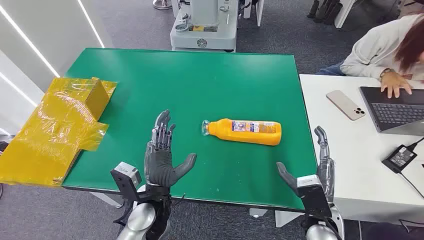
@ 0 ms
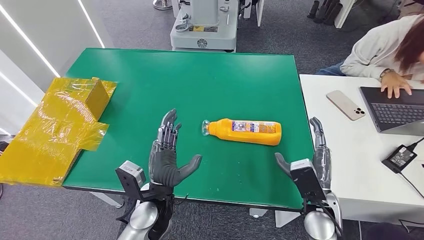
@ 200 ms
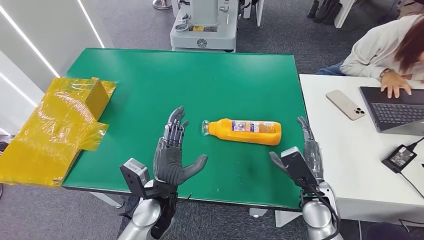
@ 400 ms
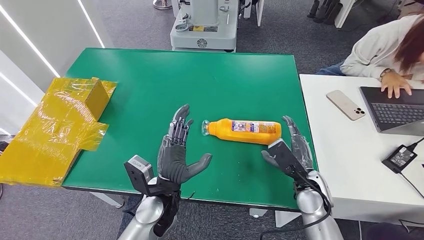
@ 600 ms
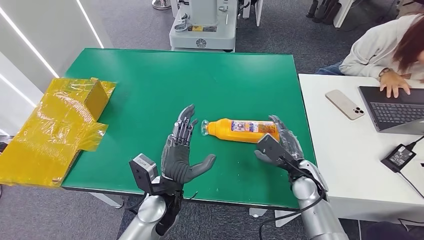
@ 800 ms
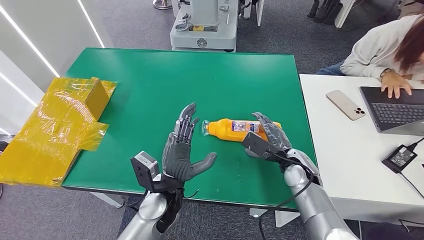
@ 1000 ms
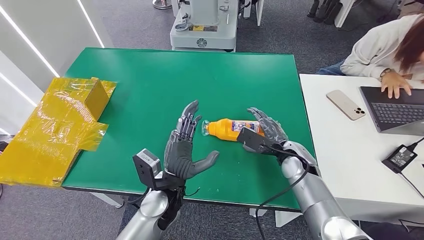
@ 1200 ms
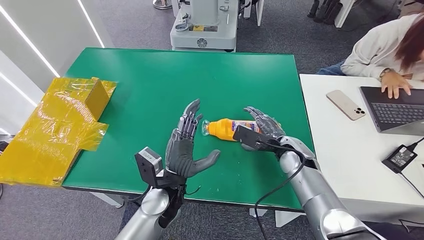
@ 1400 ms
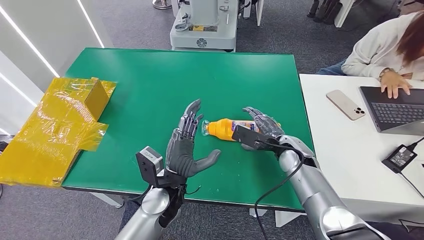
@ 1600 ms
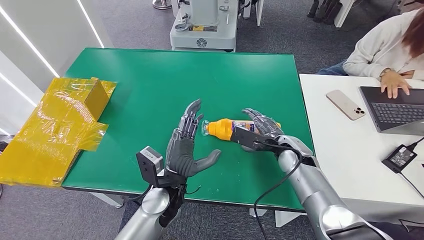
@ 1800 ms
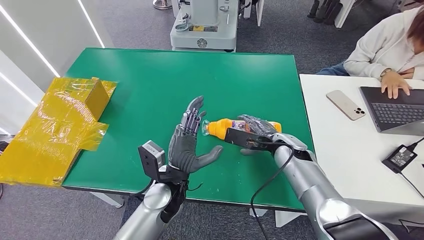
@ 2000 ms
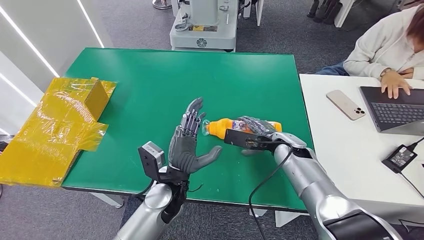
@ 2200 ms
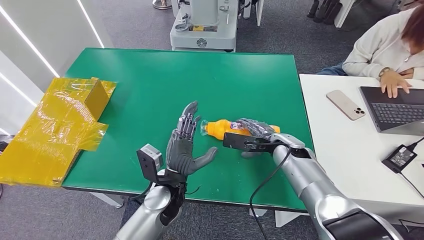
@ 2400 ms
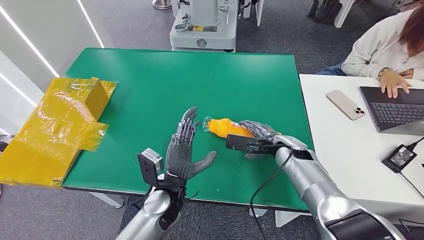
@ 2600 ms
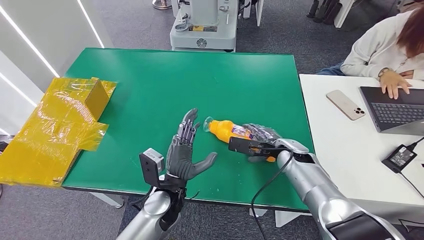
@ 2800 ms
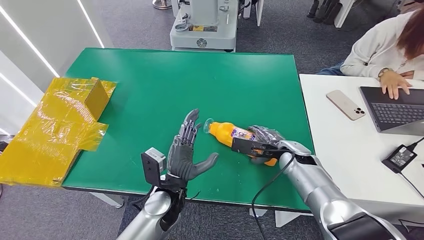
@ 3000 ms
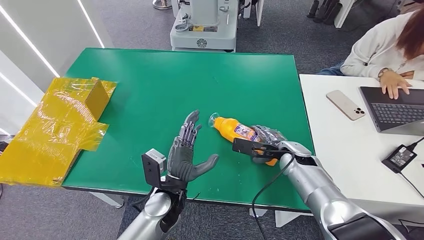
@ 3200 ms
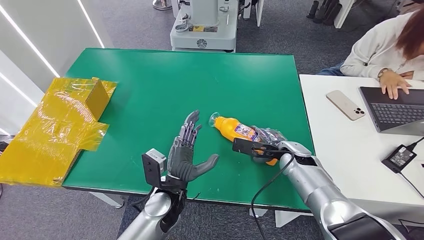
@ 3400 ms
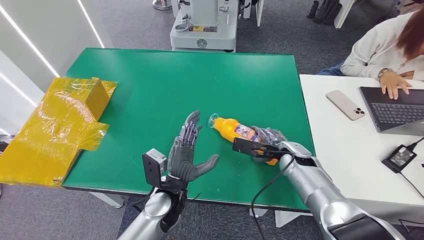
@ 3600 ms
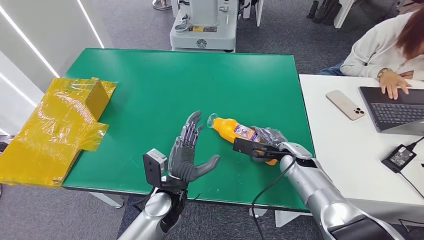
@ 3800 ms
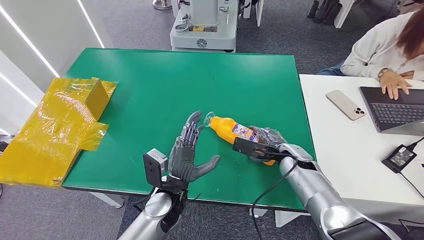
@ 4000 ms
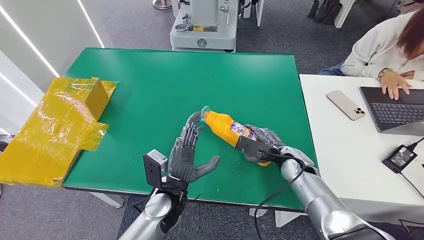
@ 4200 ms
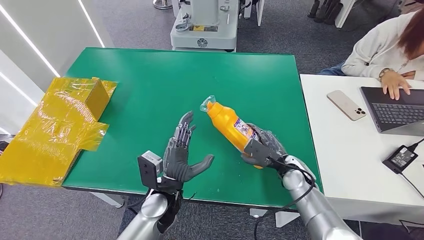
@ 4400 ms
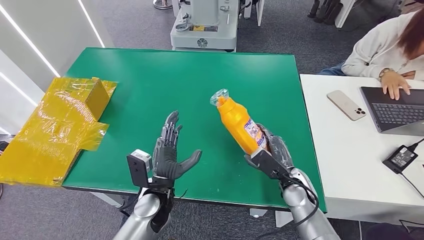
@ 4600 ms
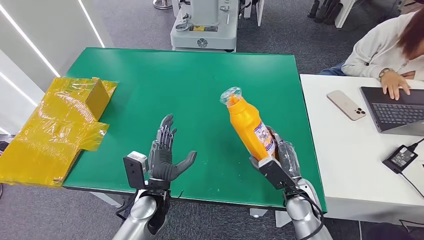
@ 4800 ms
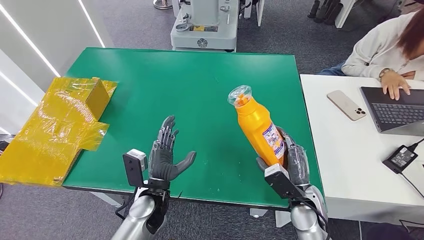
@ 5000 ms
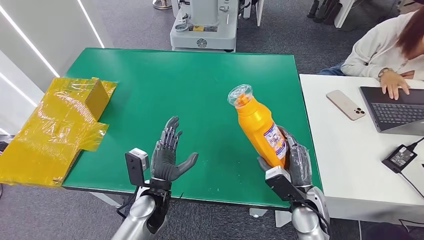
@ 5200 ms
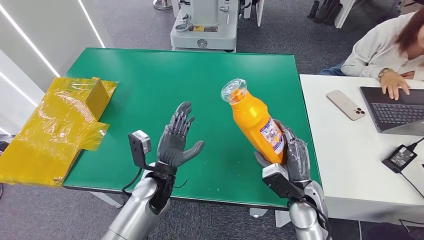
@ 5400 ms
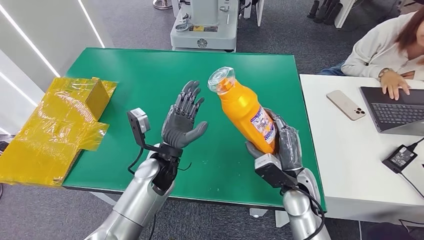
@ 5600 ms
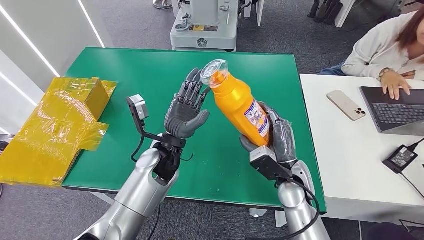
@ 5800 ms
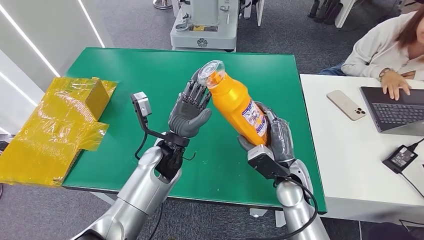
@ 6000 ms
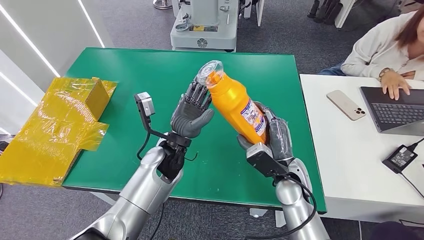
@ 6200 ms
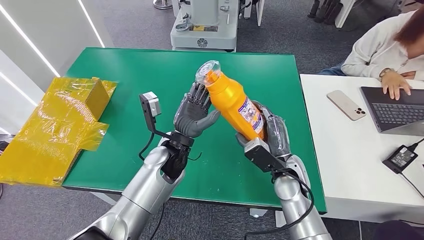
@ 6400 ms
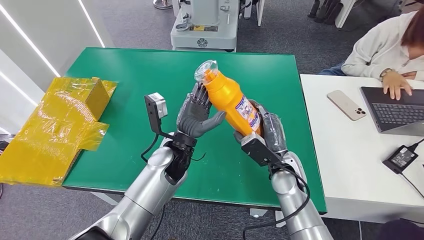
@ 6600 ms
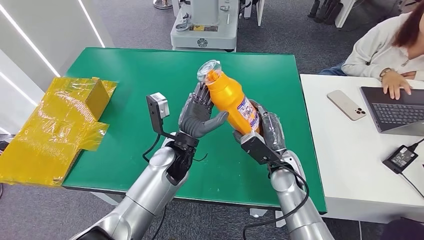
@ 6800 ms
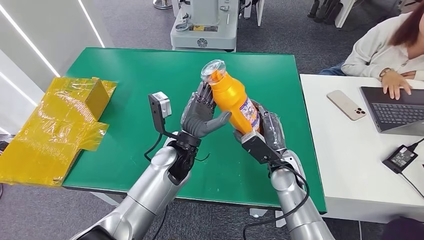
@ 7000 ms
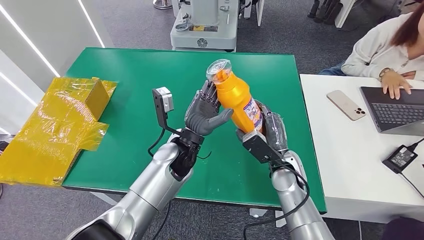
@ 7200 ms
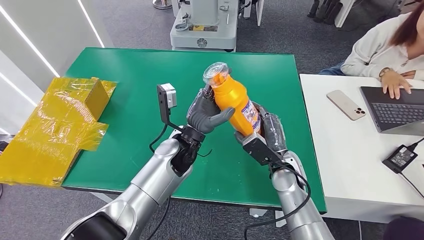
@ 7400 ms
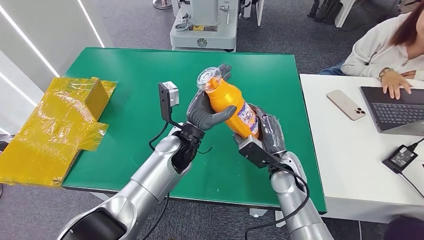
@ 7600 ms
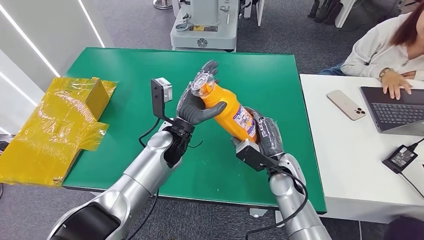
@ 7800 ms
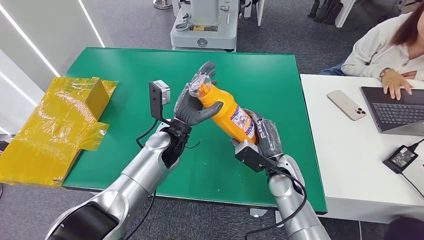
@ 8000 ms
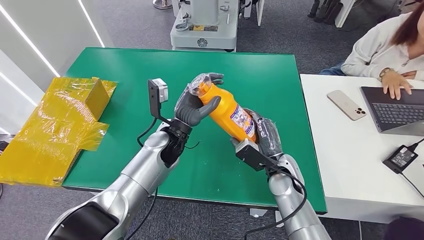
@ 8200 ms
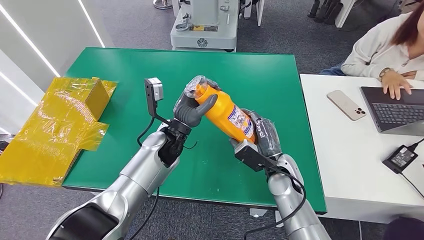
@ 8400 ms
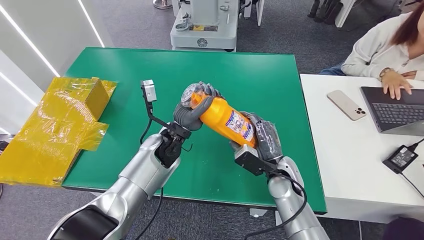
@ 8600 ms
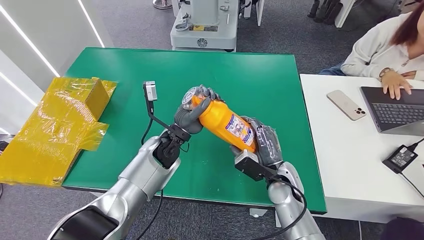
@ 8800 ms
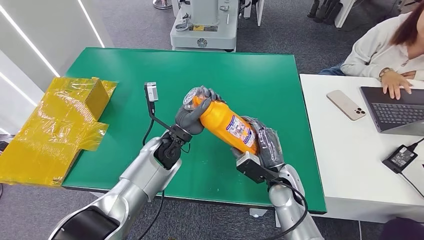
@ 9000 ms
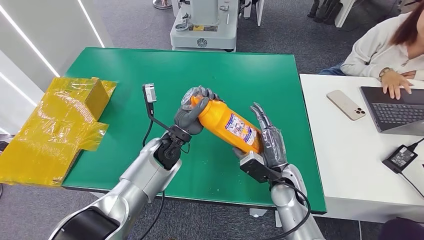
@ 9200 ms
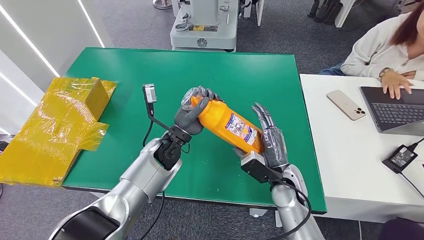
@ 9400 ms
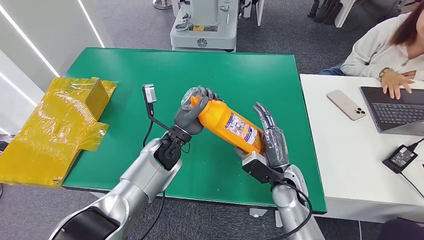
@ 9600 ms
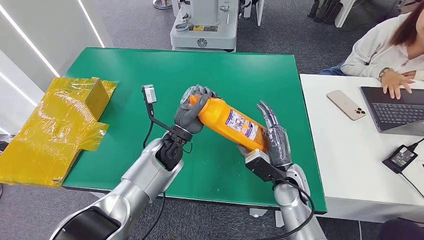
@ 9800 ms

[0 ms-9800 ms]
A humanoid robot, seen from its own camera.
Step, 0 ms to 4200 ms: Pick up the bottle from the table.
2800 ms to 4200 ms: The hands stay close to where they were, moving slightly.
4200 ms to 5600 ms: The right hand travels backward and to the left by some 10 cm; the left hand is displaced forward by about 5 cm.
5600 ms to 7000 ms: The left hand moves approximately 5 cm.
7000 ms to 8400 ms: The left hand changes place by some 5 cm.

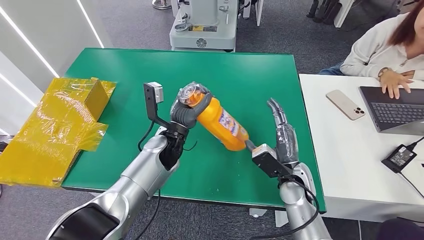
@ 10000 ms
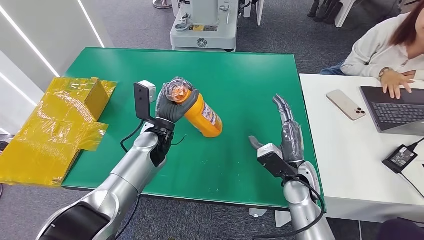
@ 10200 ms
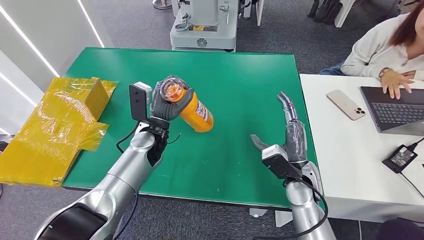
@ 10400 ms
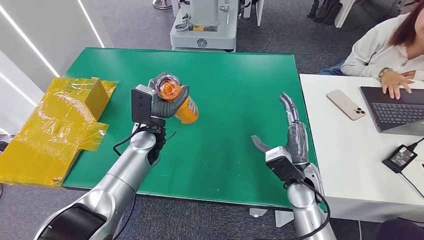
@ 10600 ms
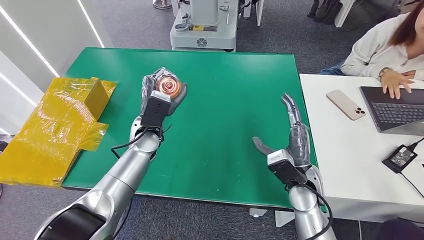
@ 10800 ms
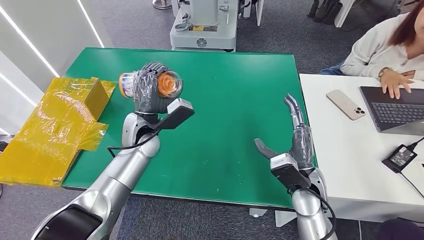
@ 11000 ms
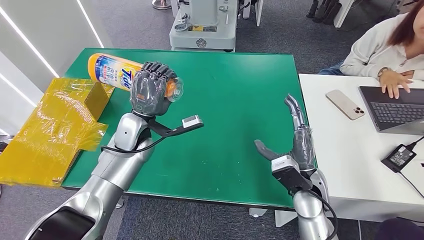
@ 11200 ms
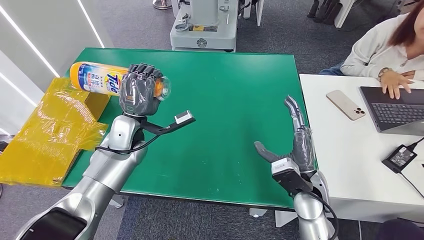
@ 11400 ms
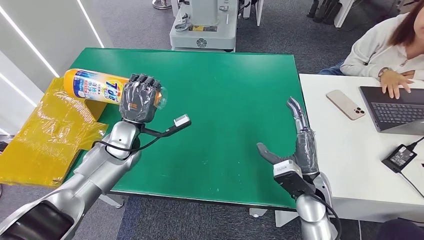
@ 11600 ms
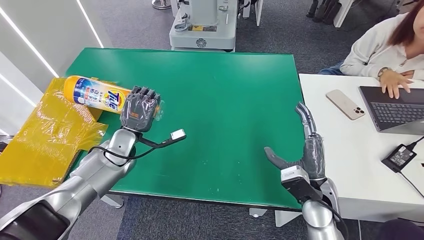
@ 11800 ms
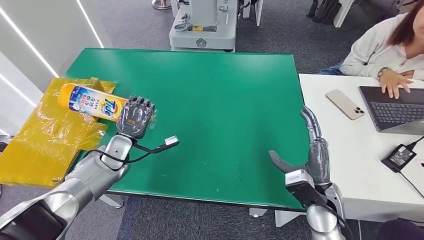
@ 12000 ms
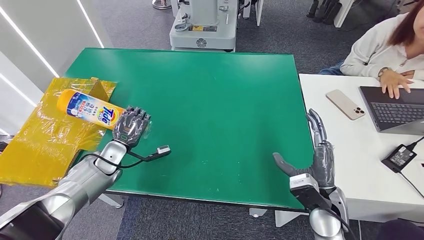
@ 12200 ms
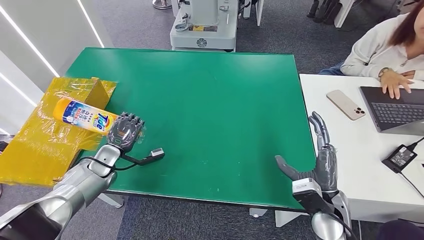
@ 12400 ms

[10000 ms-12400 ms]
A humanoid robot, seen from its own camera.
Step, 10000 ms to 12400 ms: Turn the bottle to the front side.
10000 ms to 11200 ms: The left hand shifts some 10 cm to the left.
11200 ms to 12400 ms: The left hand shifts some 20 cm to the left and downward, while the right hand changes place by approximately 5 cm.

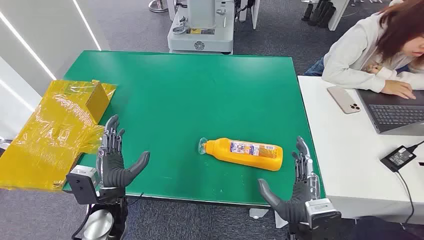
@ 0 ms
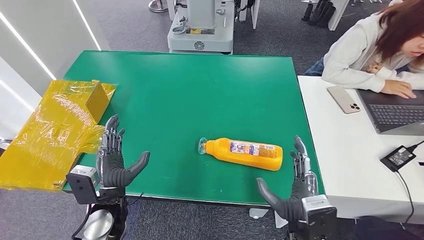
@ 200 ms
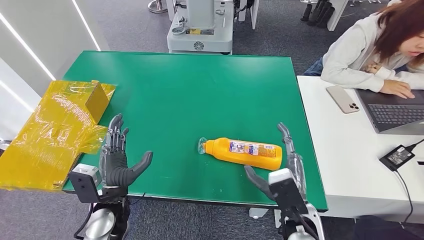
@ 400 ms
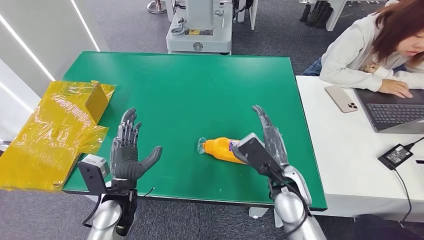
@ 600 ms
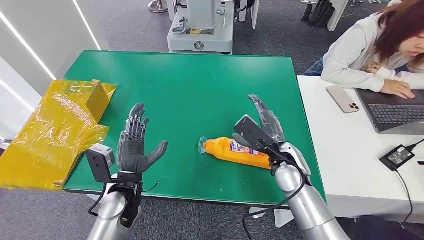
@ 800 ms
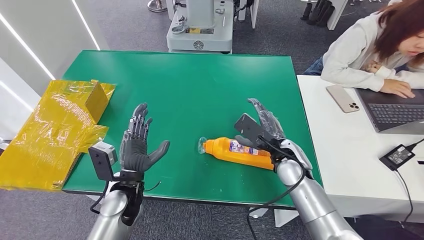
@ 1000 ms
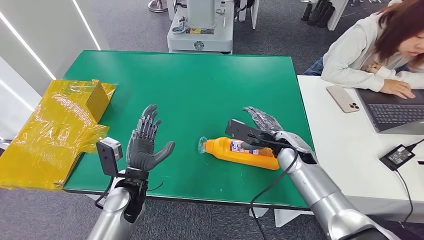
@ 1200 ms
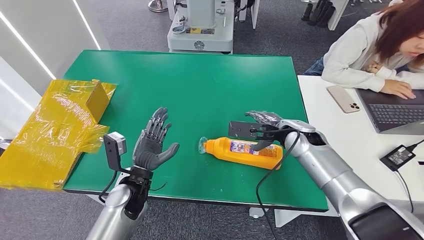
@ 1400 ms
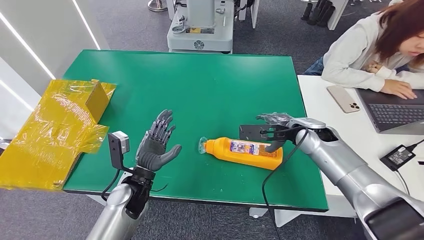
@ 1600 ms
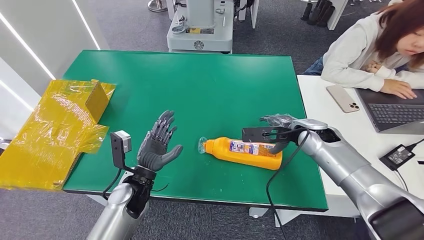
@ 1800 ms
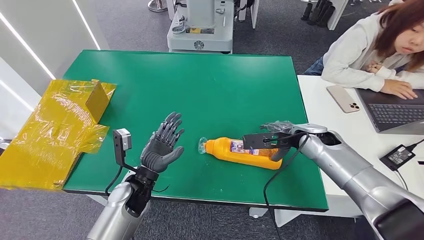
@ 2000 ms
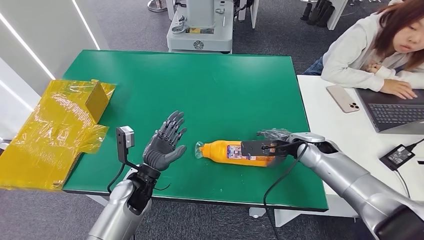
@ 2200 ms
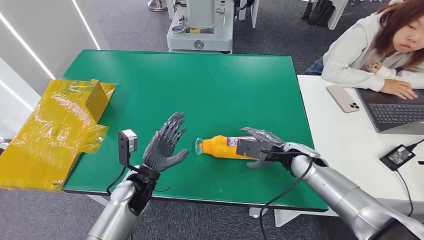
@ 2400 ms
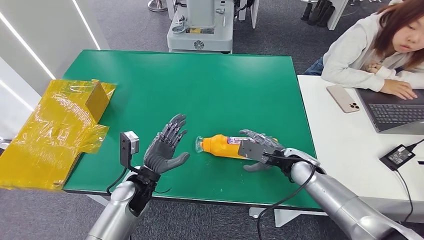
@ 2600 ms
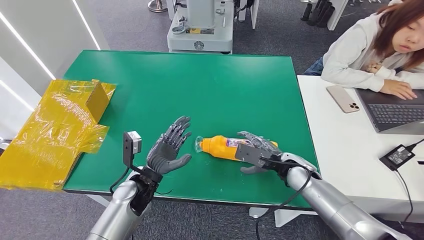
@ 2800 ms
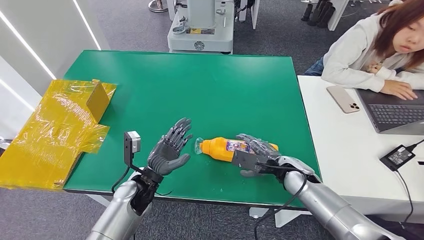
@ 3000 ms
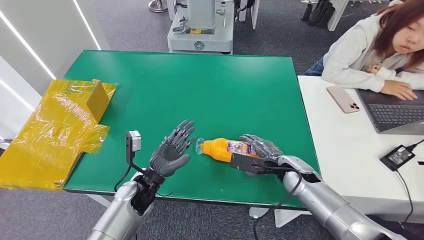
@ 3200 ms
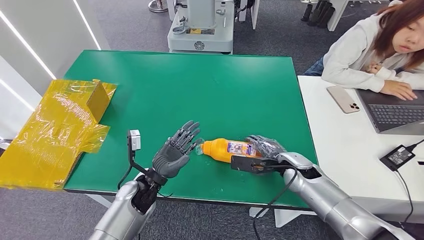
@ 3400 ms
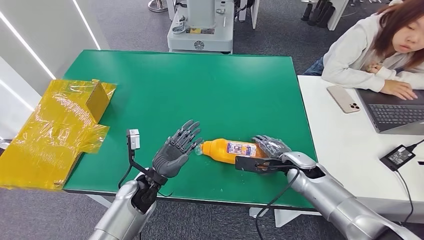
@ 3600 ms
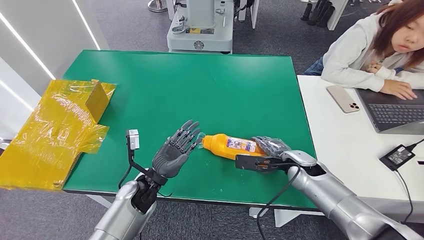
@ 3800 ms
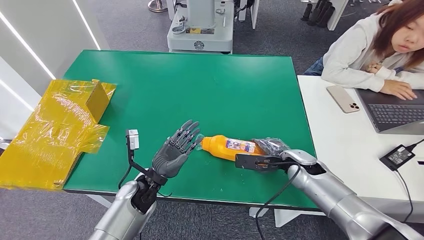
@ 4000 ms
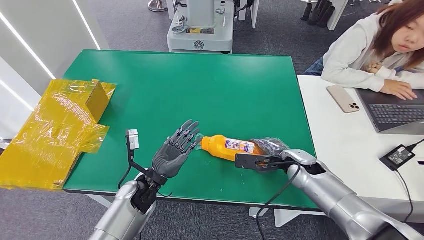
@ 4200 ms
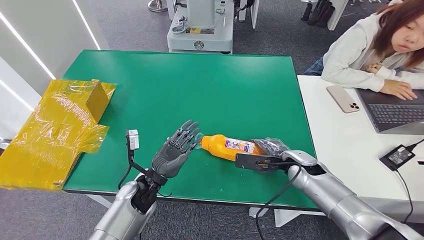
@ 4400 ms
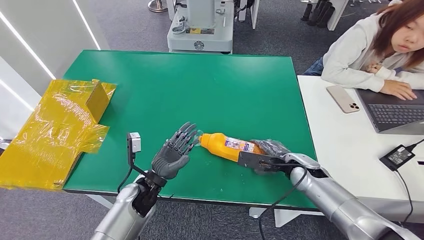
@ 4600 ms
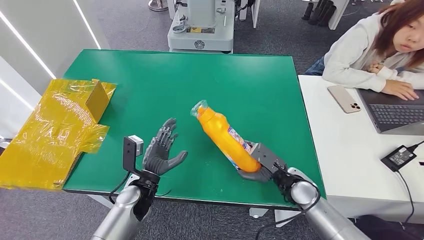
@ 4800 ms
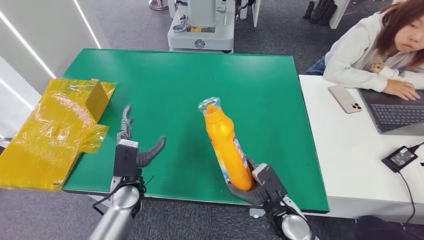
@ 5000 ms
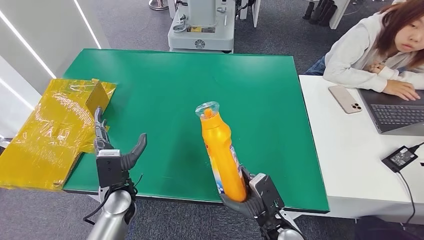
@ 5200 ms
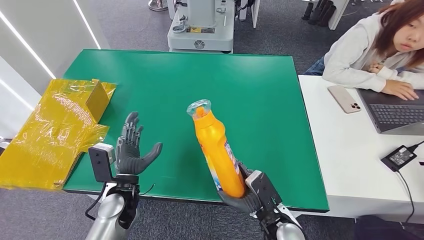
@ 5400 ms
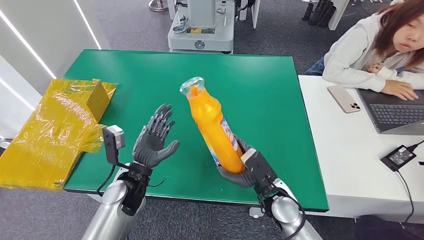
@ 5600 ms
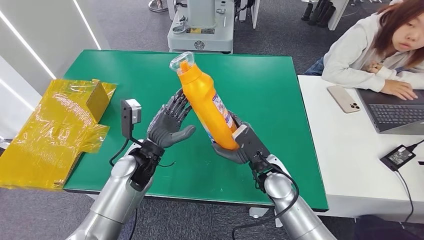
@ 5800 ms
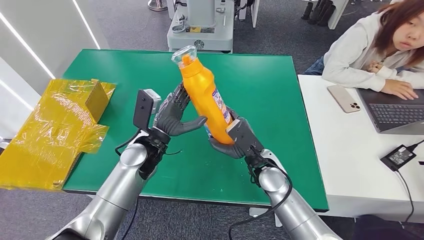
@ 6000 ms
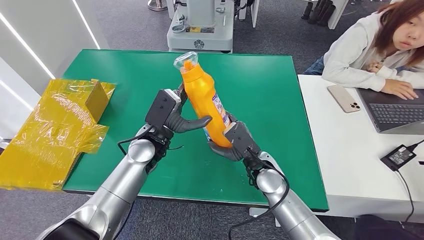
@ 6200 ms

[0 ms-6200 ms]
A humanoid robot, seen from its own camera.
Step, 0 ms to 5000 ms: Pick up the bottle from the table.
1600 ms to 3200 ms: The right hand is displaced downward and backward by approximately 15 cm.
3200 ms to 4600 ms: The hands stay close to where they were, moving slightly.
